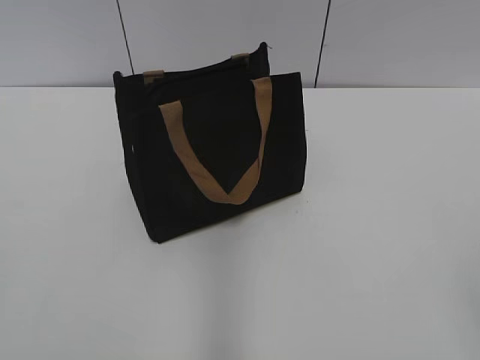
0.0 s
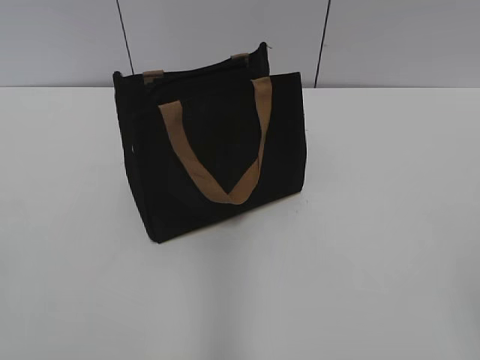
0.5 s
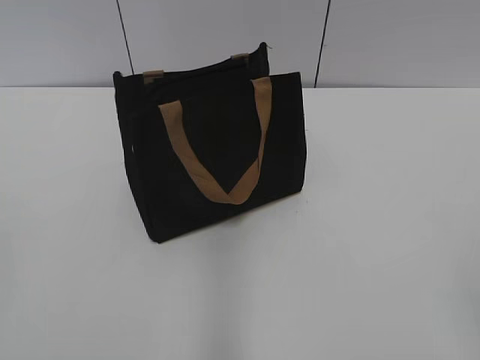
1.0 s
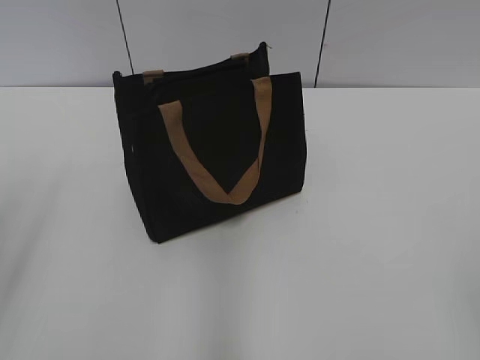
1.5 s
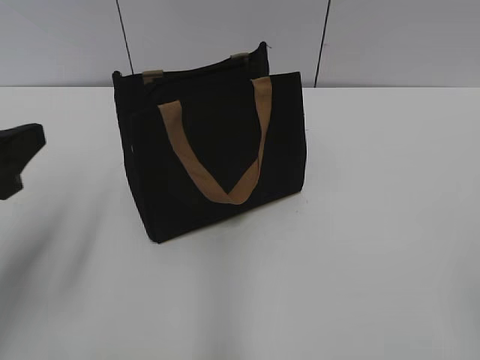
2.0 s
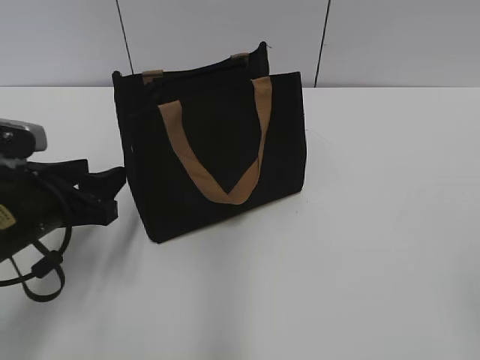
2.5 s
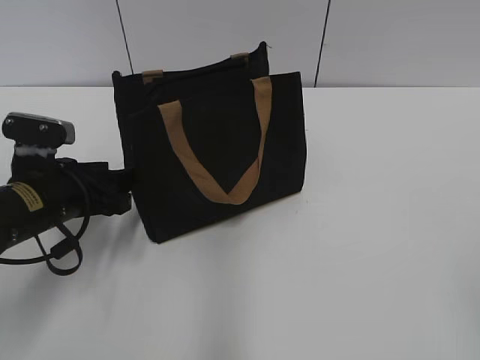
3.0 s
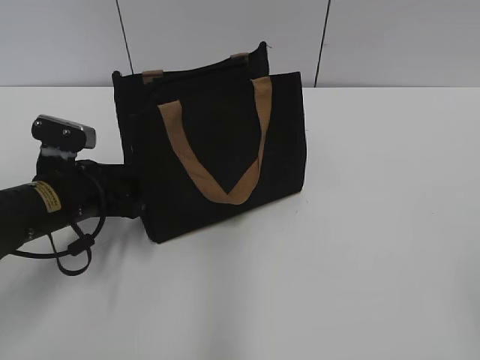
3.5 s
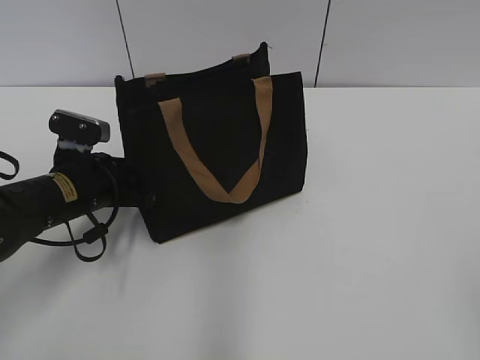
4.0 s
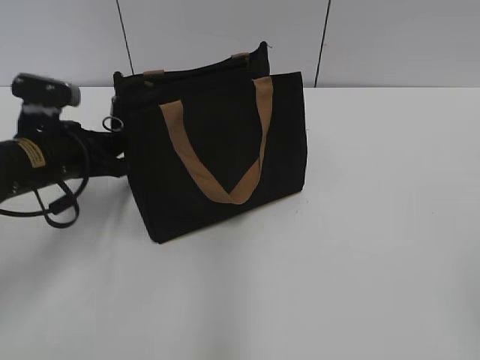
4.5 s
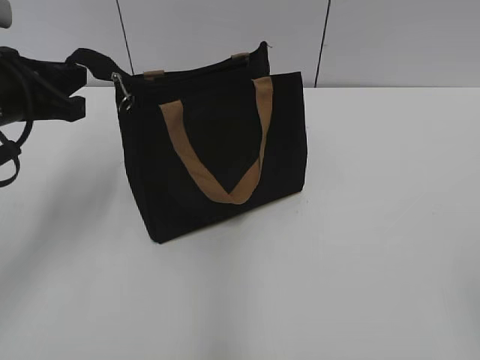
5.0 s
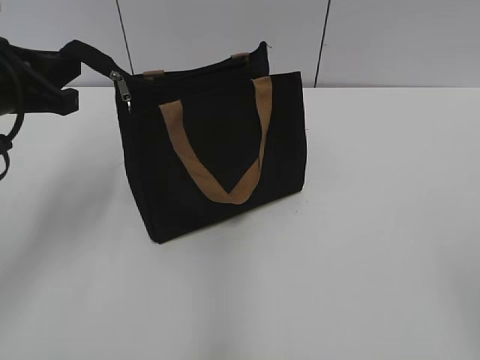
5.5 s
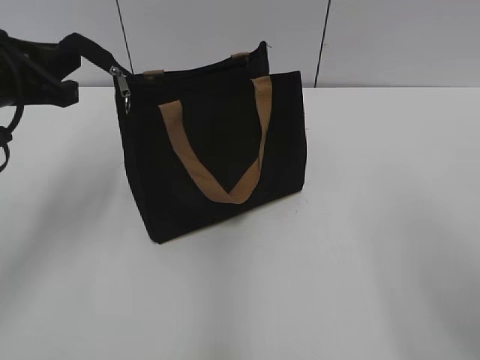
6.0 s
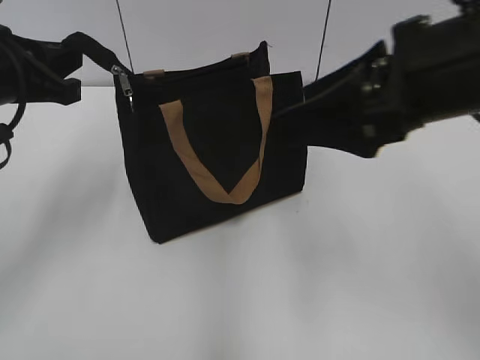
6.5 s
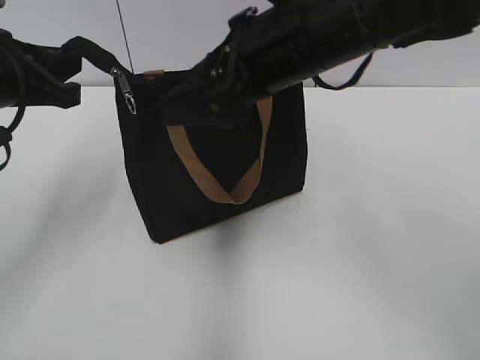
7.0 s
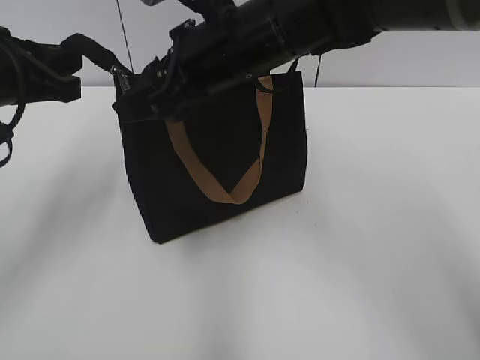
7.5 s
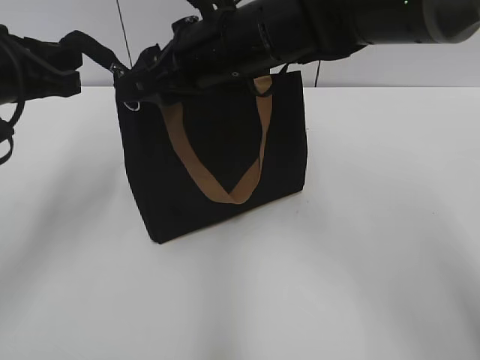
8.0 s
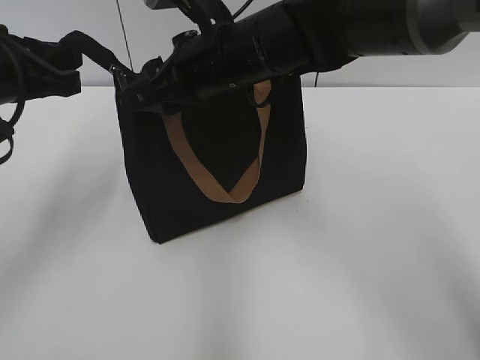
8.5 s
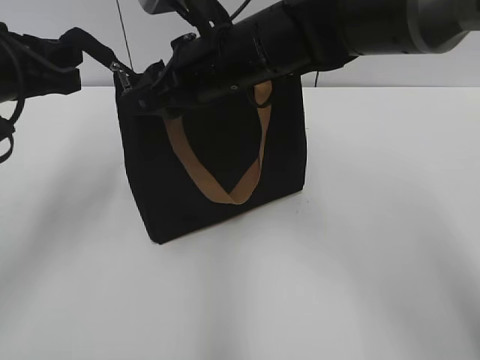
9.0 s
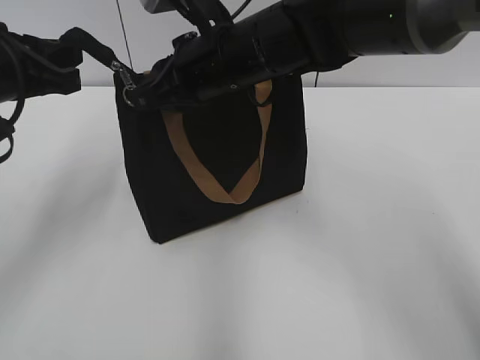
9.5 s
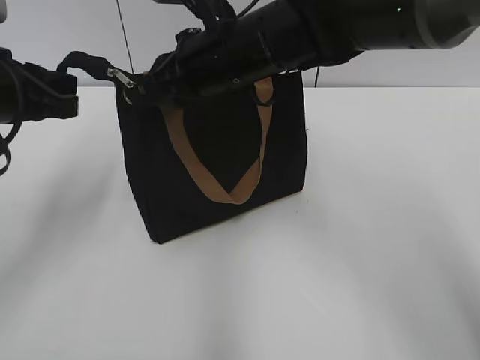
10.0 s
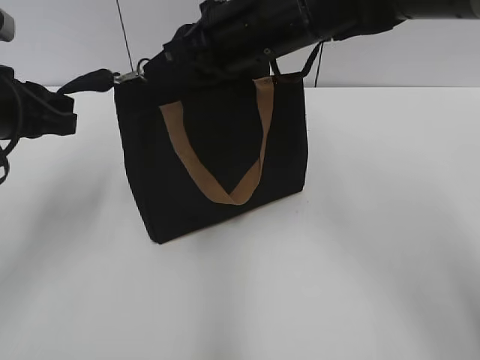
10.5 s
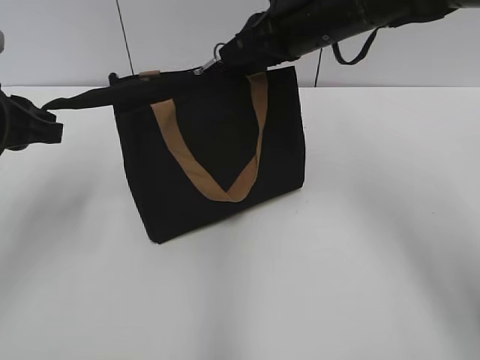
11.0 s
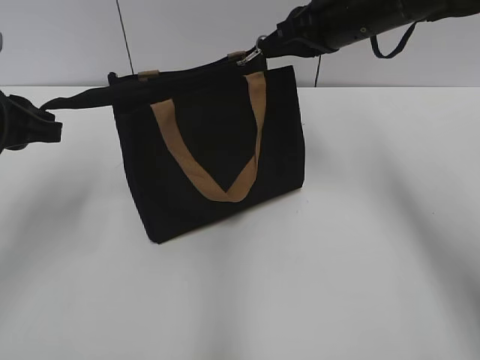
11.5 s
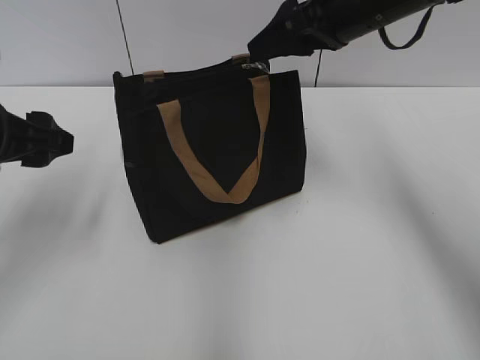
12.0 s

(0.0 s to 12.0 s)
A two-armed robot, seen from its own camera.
Step, 0.0 s - 11.5 s: Zip up the bag with your right hand.
2.0 s - 4.0 s: The left gripper travels downward, forward and to the right by roughly 20 cm.
4.0 s - 6.0 s: The left gripper goes some 15 cm upward, and closes; the right gripper shifts roughly 10 cm forward.
6.0 s - 8.0 s: The right gripper is displaced forward and to the left by roughly 40 cm.
8.0 s - 10.0 s: The right gripper closes up.
10.0 s - 12.0 s: The left gripper opens its fingers; the right gripper goes approximately 15 cm to the right, and opens its fingers.

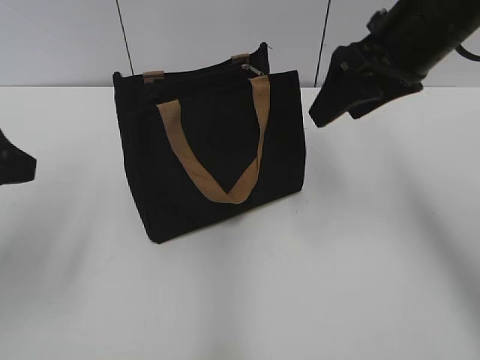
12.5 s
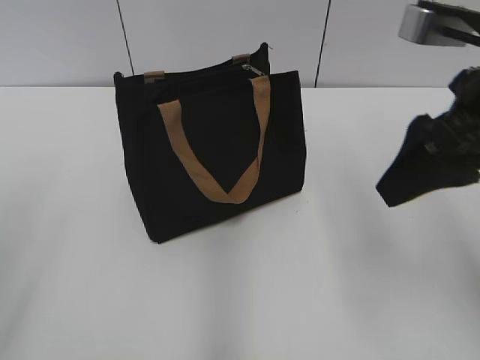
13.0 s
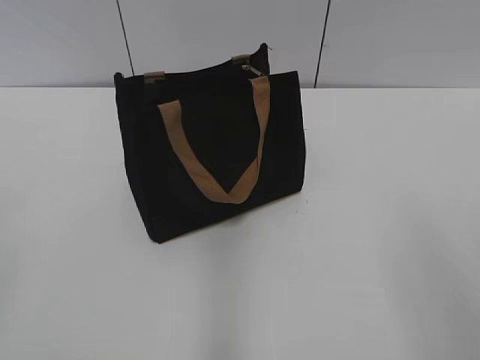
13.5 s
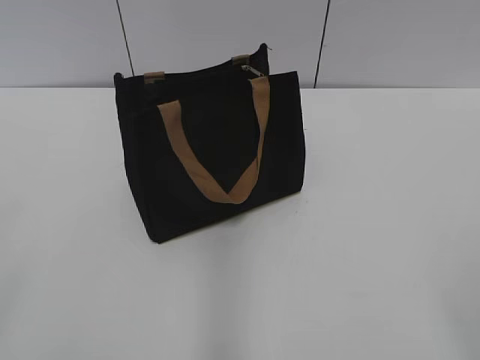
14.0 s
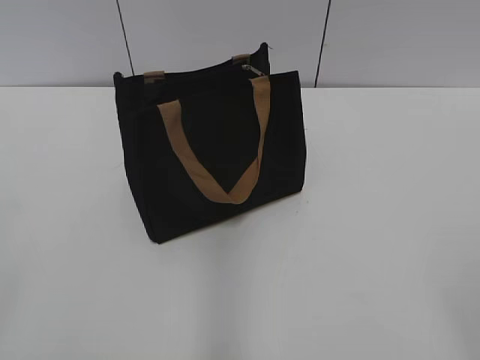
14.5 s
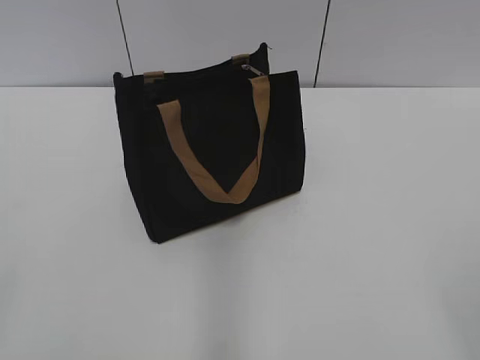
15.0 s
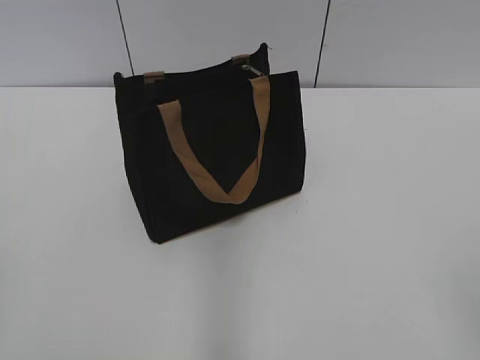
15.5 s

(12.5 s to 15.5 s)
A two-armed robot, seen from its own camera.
12.5 s - 14.0 s: The left gripper is displaced backward by about 20 cm, while the right gripper is displaced backward by roughly 35 cm.

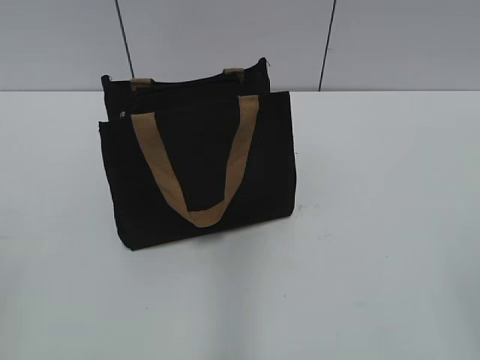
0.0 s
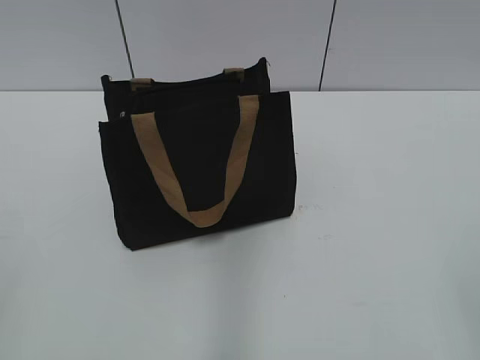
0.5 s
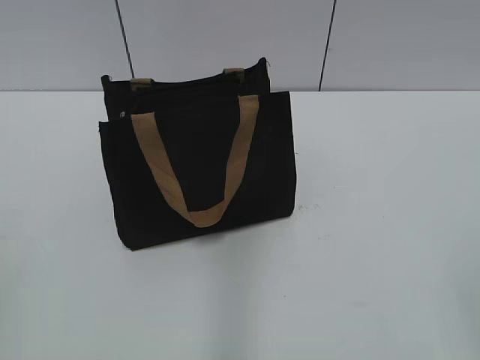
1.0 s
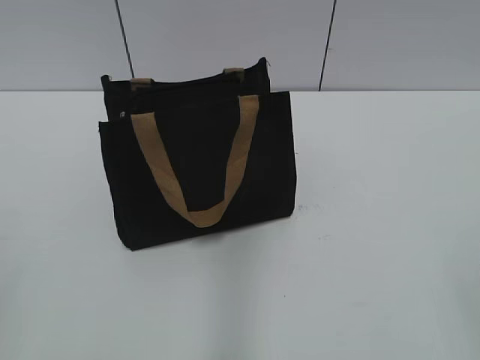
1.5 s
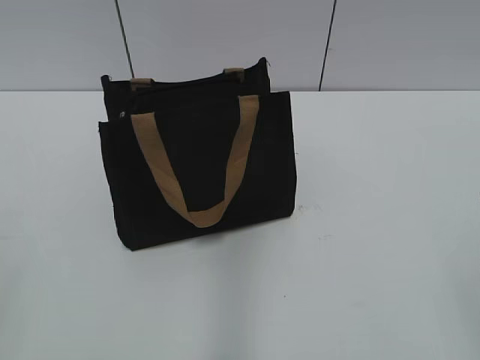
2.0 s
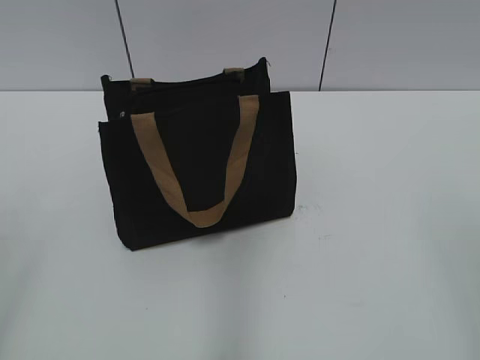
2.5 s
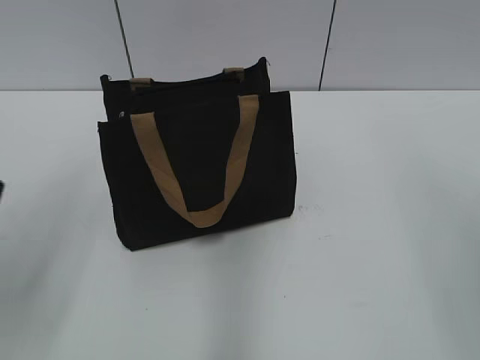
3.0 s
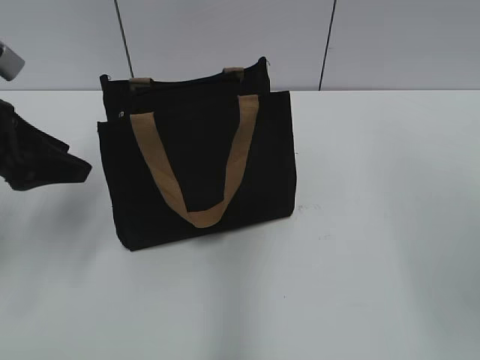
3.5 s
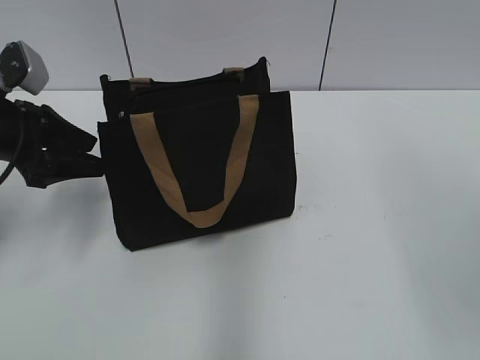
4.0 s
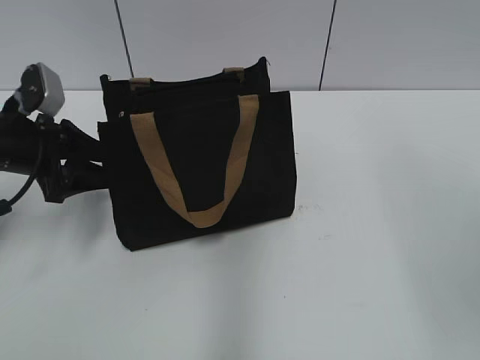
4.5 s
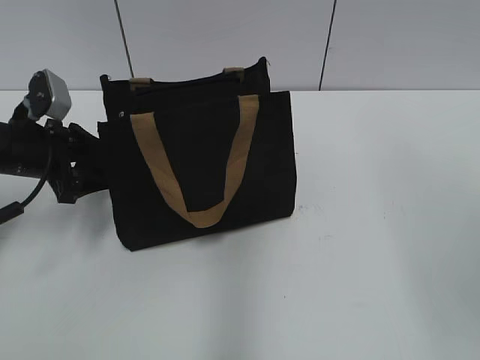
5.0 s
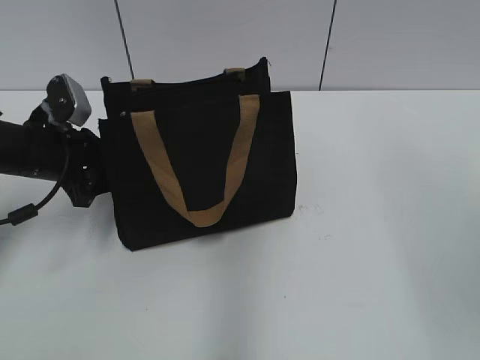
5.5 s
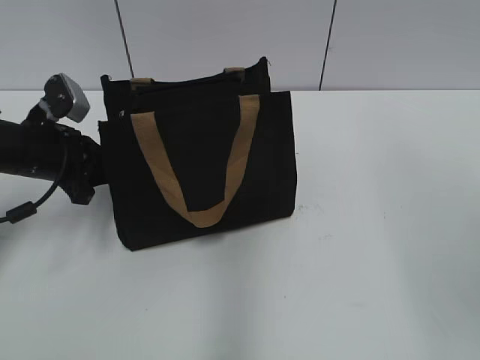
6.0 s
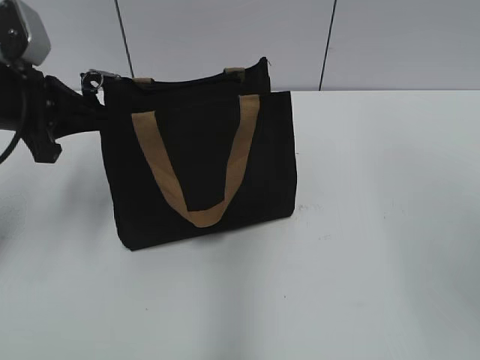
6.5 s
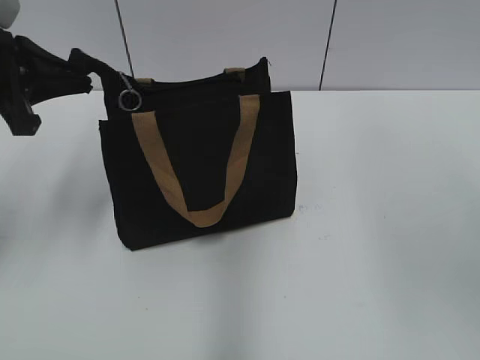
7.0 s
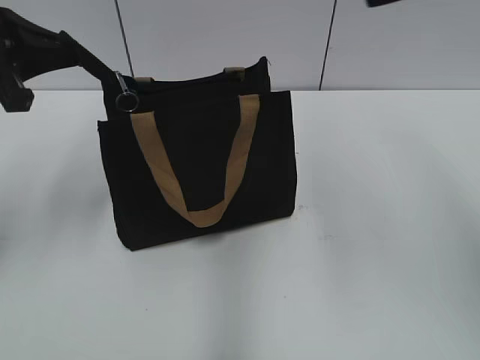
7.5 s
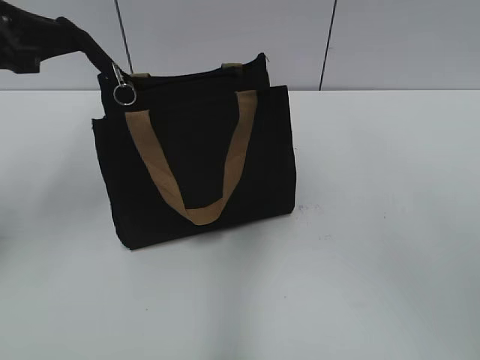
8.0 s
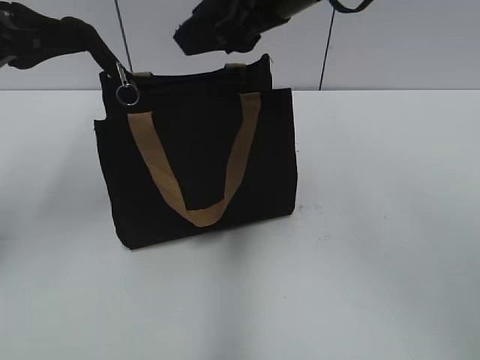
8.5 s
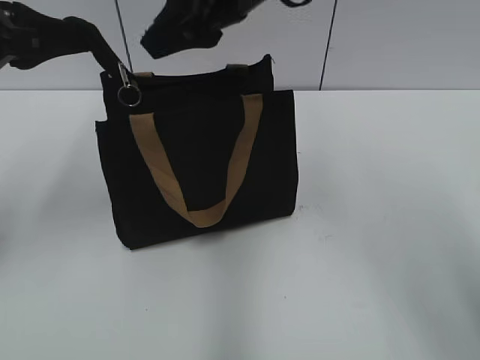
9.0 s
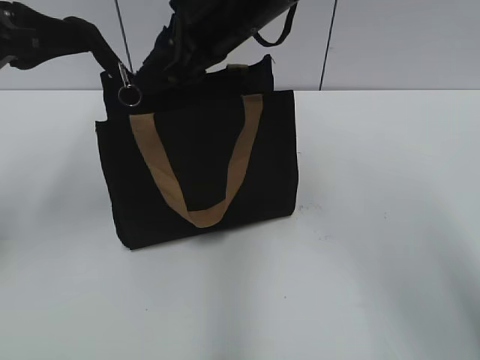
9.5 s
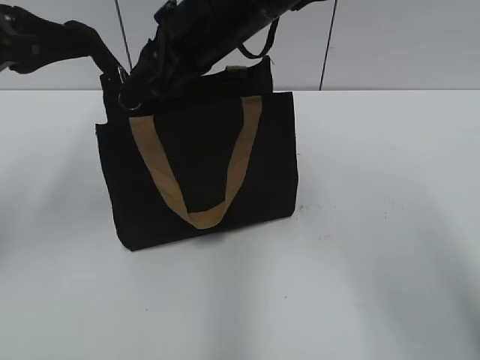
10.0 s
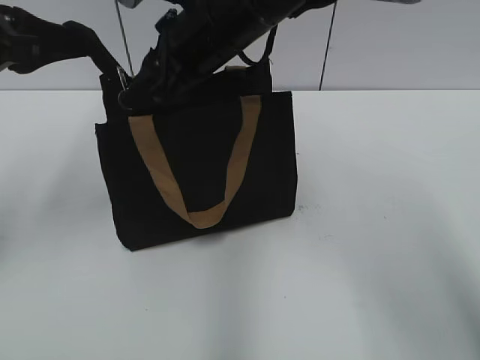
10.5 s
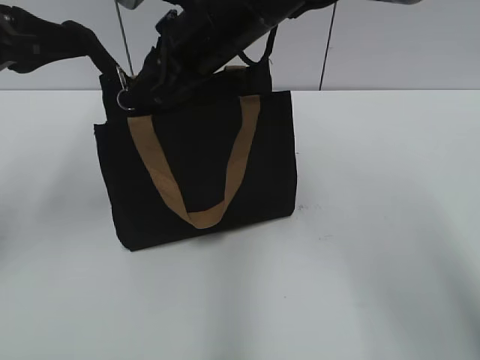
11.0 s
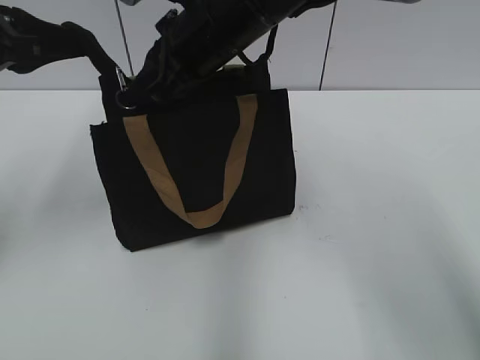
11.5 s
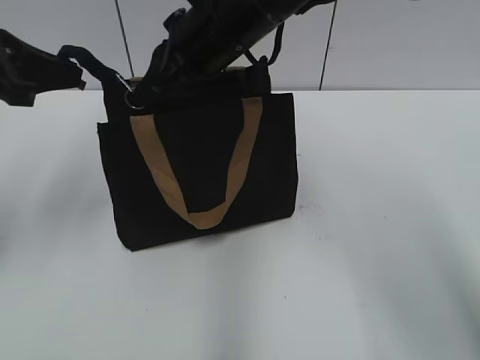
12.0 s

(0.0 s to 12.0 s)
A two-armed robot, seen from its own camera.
2.0 s - 4.0 s: The left gripper goes some 30 cm forward, and opens its fingers.
4.0 s - 6.0 s: The left gripper is displaced downward by about 5 cm, and closes its fingers.
6.0 s - 8.0 s: The left gripper travels upward by some 15 cm; the right gripper shifts some 20 cm to the left and forward.
8.0 s - 10.0 s: The right gripper travels downward, to the left and forward by some 15 cm.
10.0 s - 12.0 s: The right gripper closes.
